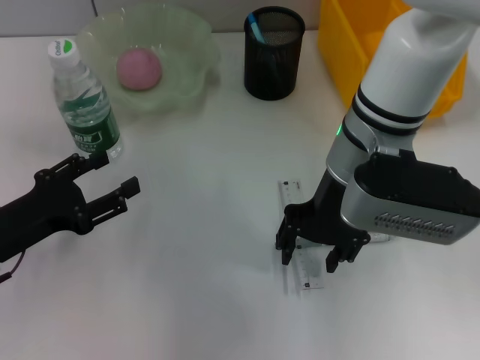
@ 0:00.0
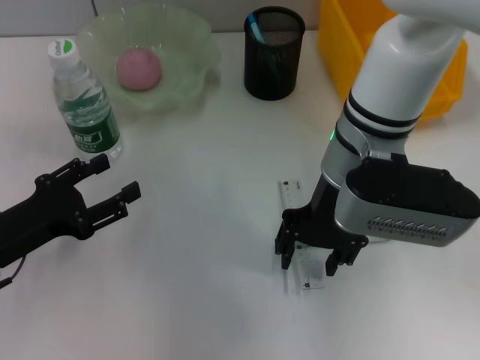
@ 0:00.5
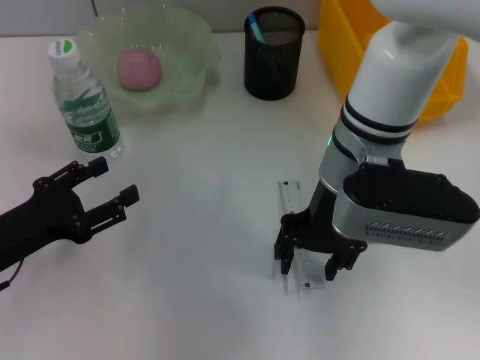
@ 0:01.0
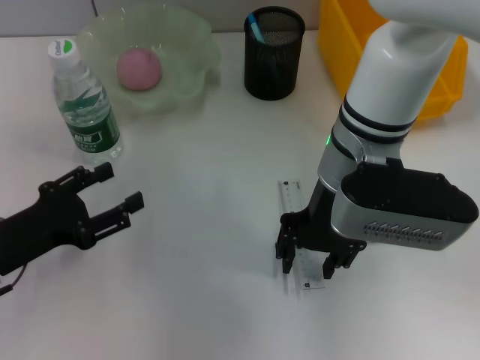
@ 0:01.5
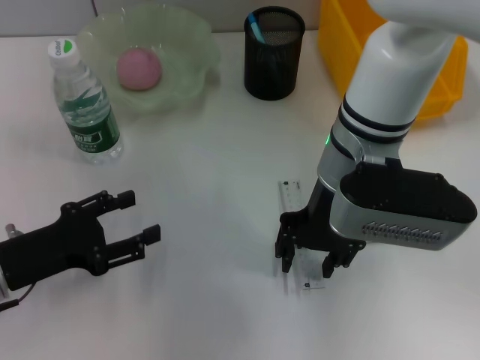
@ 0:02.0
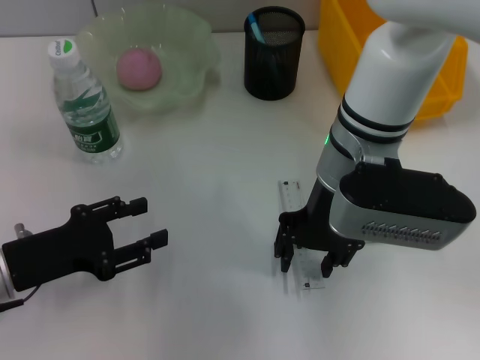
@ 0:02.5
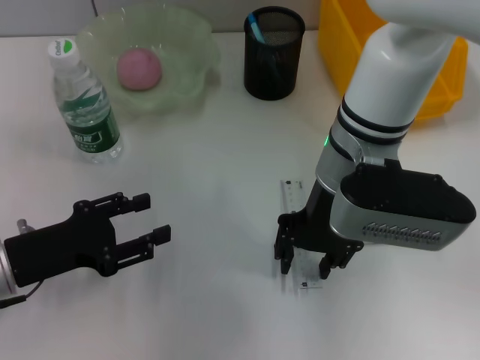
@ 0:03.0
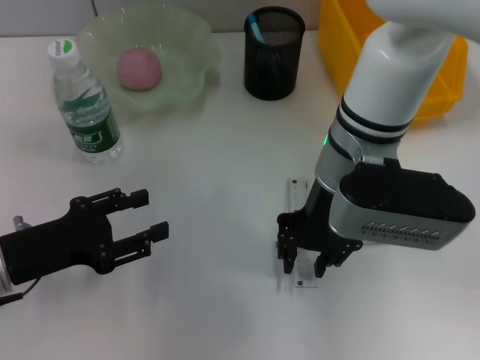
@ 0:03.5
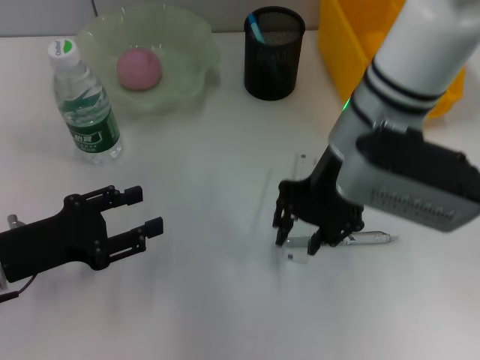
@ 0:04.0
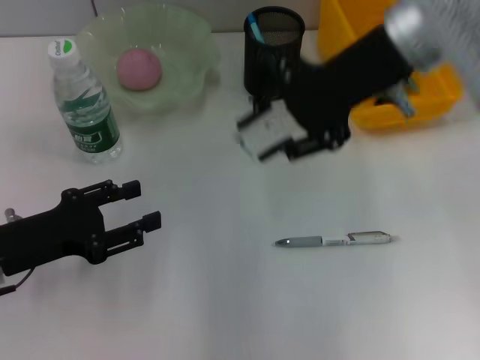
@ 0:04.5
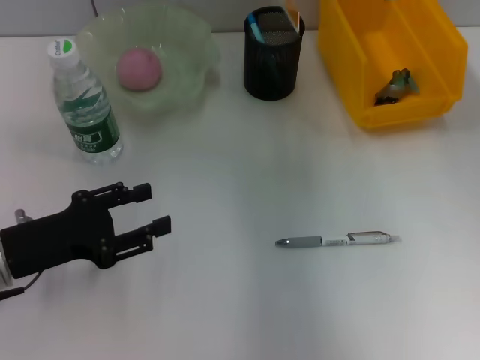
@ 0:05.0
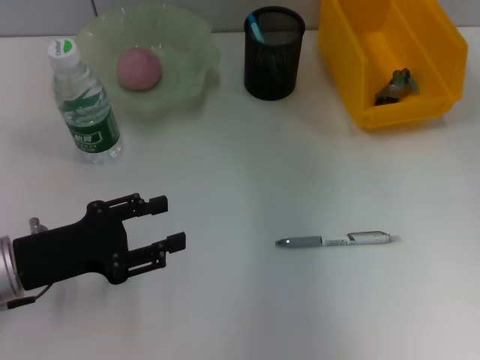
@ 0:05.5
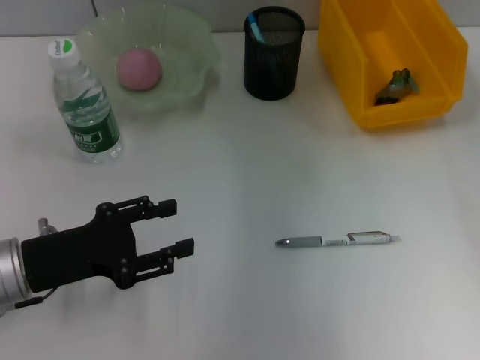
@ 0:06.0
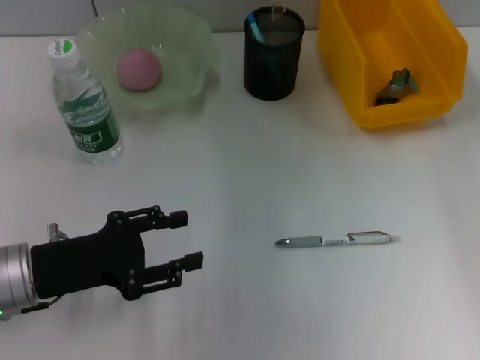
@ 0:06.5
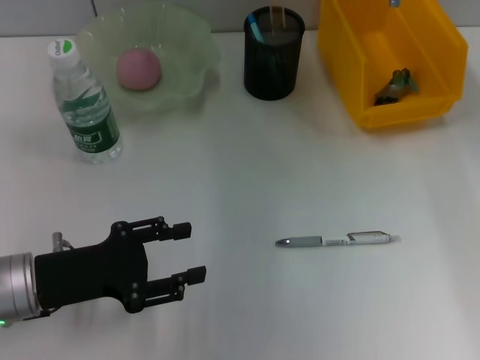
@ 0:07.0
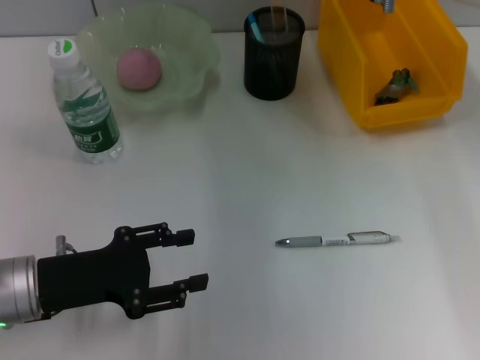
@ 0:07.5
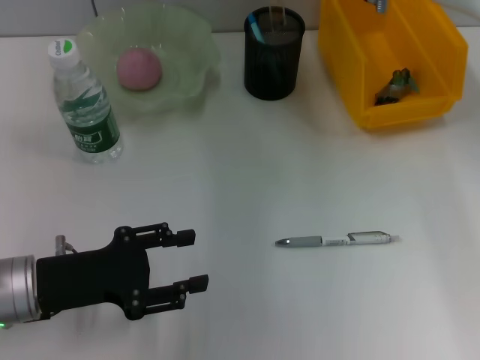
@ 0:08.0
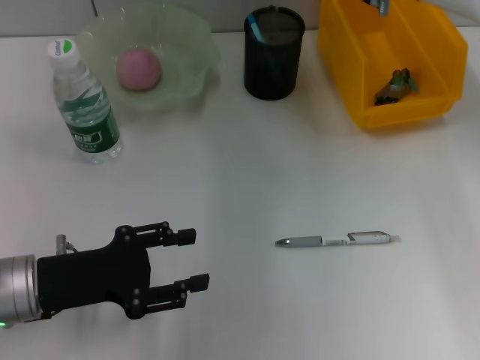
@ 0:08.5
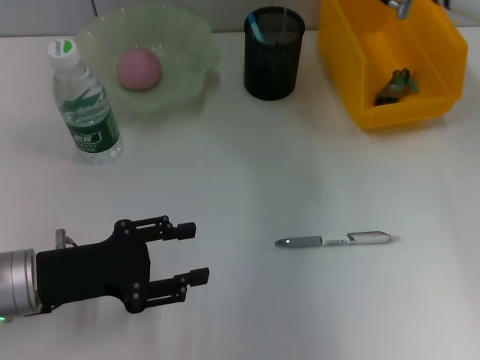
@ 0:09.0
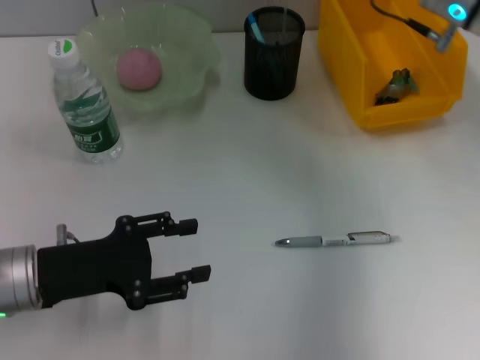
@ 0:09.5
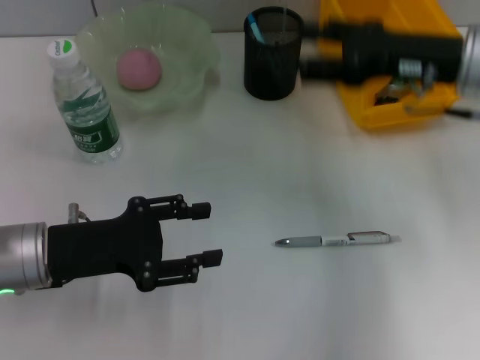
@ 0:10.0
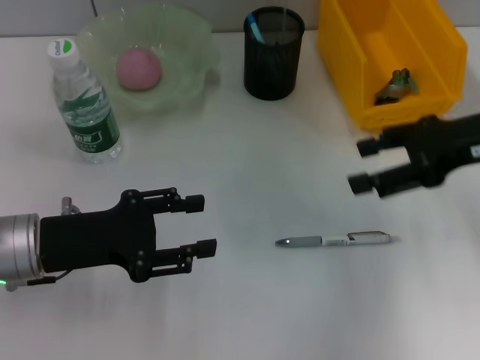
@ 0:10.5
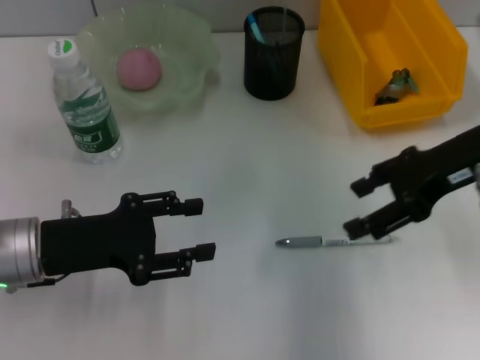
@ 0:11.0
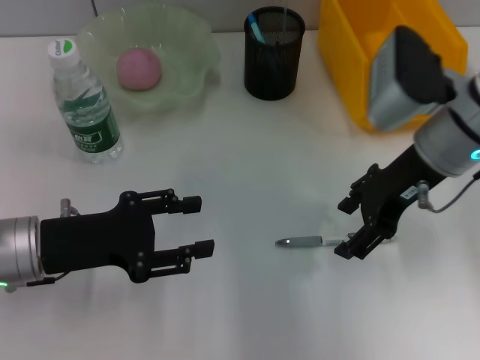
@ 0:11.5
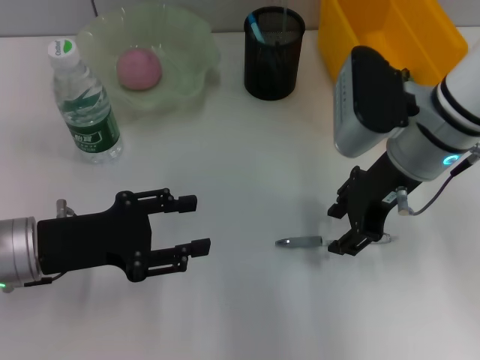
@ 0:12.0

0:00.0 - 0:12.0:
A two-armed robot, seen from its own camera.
Step, 0:00.0 - 0:03.0: Grab the ruler with the right hand.
Step, 0:03.5 - 0:08.5: Place the ruler into the pen holder with the right hand.
0:00.0 - 0:04.0: The grippers stay close to where they were, moving slightly.
0:04.0 - 0:06.0: The right gripper shifts about 15 cm forward and to the right.
0:06.0 - 0:08.0: The right gripper moves some 5 cm.
0:08.0 - 0:10.0: The right gripper is displaced backward and to the right by roughly 15 cm, and opens.
0:10.0 - 0:12.0: The right gripper shifts about 5 cm to the left.

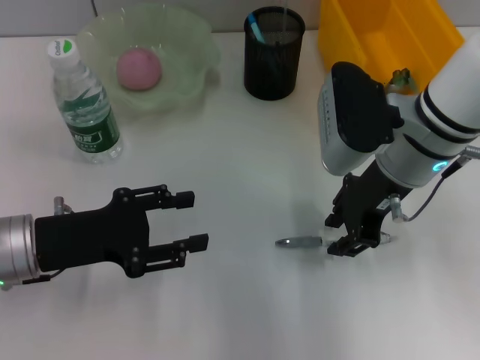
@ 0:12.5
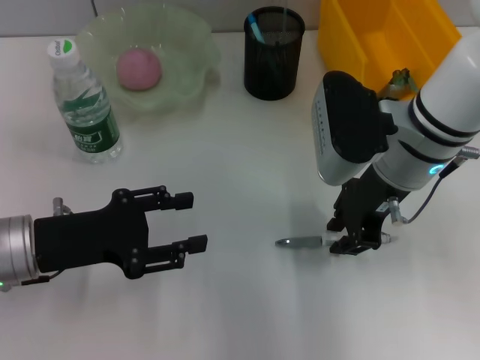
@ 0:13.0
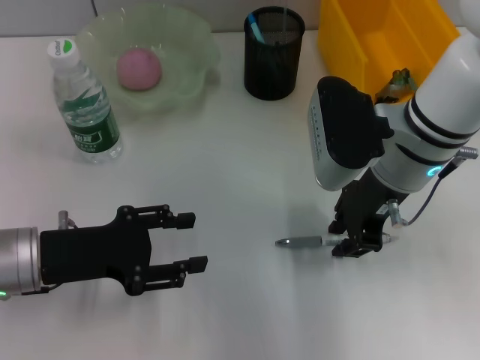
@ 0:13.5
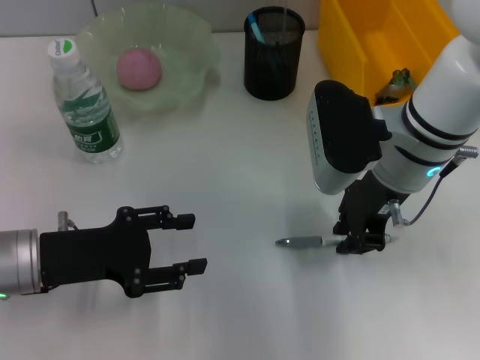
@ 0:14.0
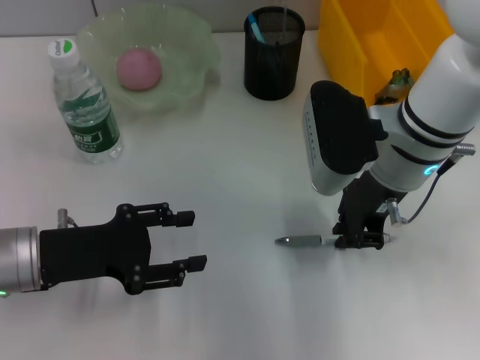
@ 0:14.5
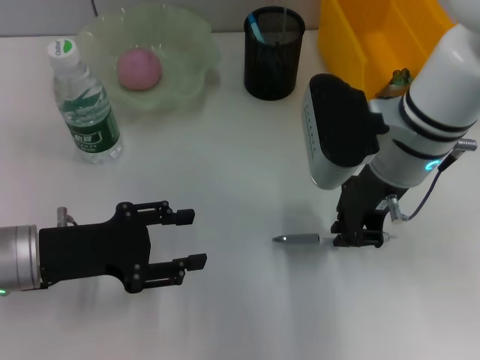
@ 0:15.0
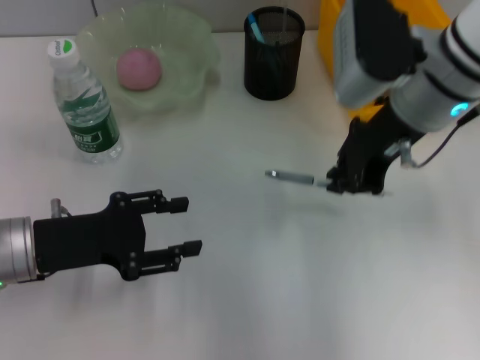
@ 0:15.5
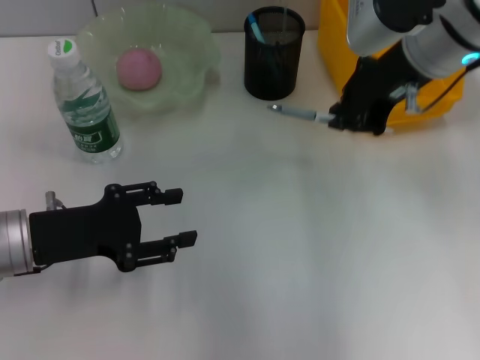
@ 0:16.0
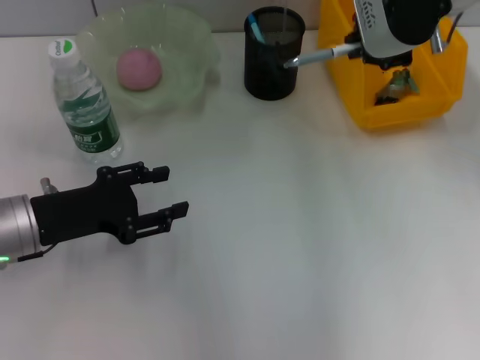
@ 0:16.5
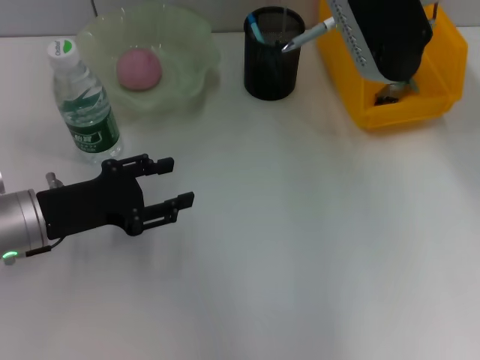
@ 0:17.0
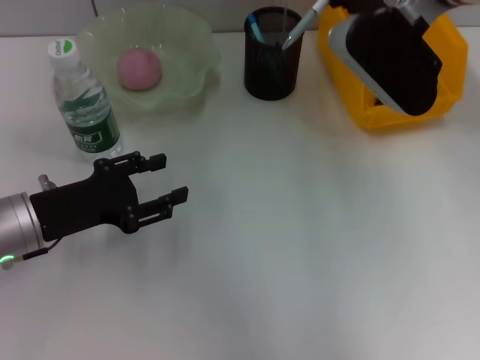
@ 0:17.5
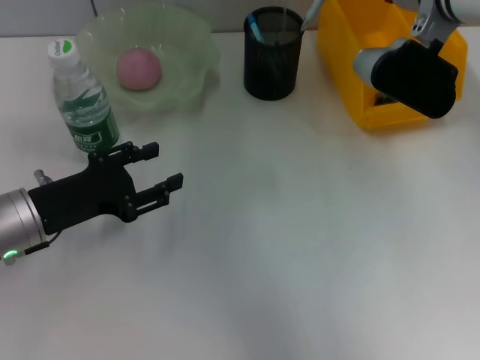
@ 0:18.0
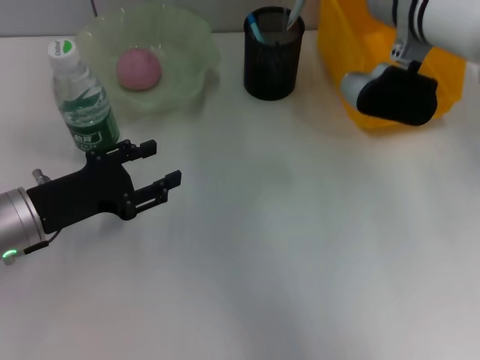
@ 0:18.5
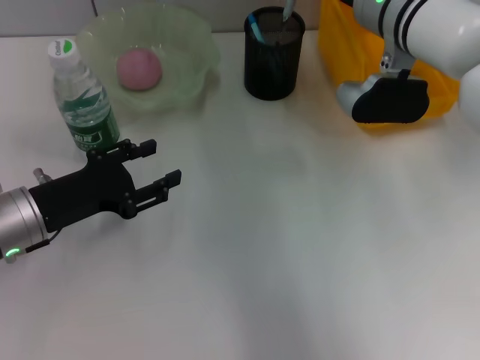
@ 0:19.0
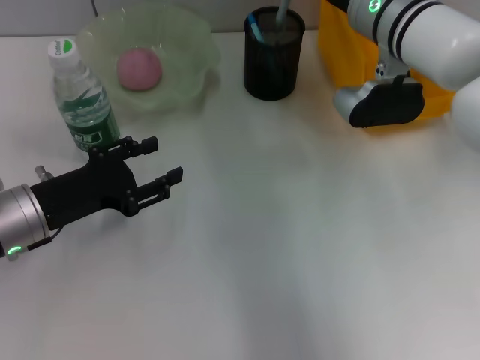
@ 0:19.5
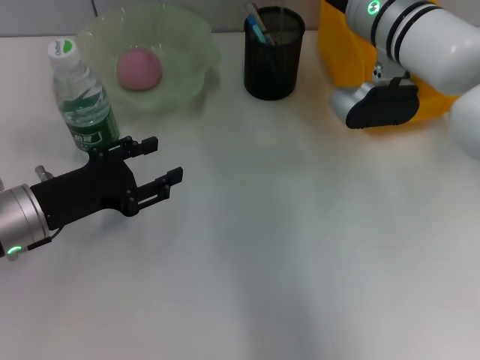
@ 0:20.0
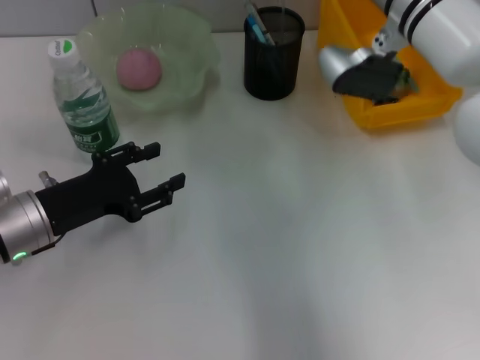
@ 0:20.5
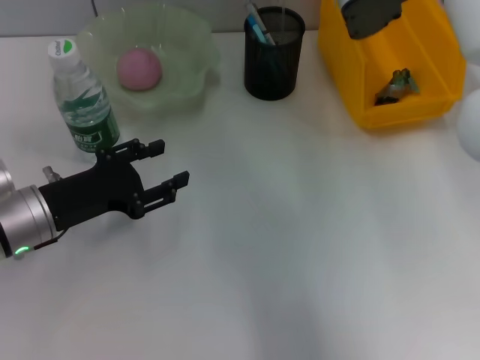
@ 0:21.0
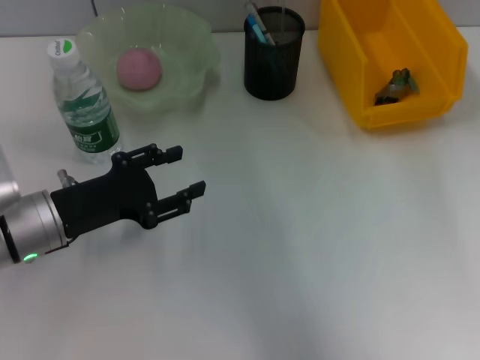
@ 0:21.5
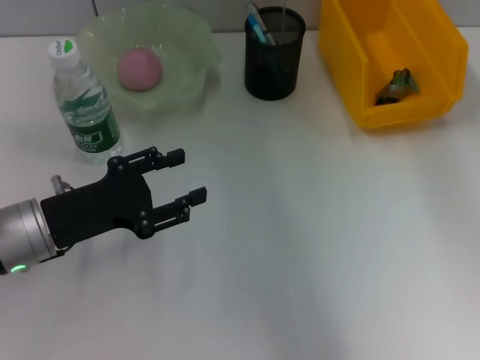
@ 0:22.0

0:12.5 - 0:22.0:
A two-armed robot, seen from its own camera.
Step, 0:12.5 - 0:14.5: Grab the gray spring-action pen with the right hand.
Step, 0:15.0 - 0:19.5: Place the gray spring-action pen into the pen holder with the right hand.
0:12.5 - 0:14.5: The grippers stay close to where they were, moving slightly.
0:14.5 - 0:16.5: The right gripper goes roughly 15 cm upward.
0:16.5 - 0:18.0: The right gripper is displaced downward by approximately 5 cm.
0:18.0 - 0:20.0: The right gripper travels downward by roughly 5 cm, and opens its fingers.
0:20.0 - 0:22.0: The right gripper moves upward and to the right, roughly 15 cm.

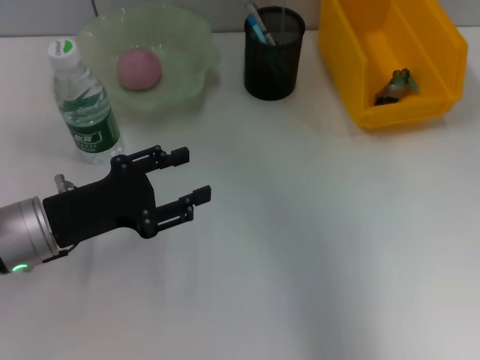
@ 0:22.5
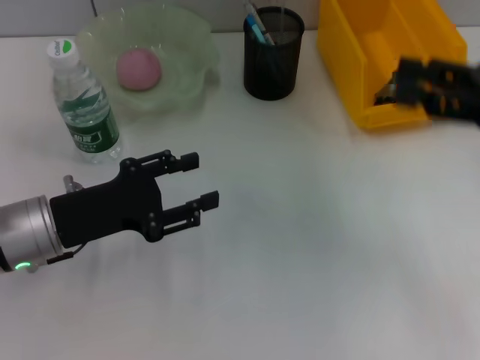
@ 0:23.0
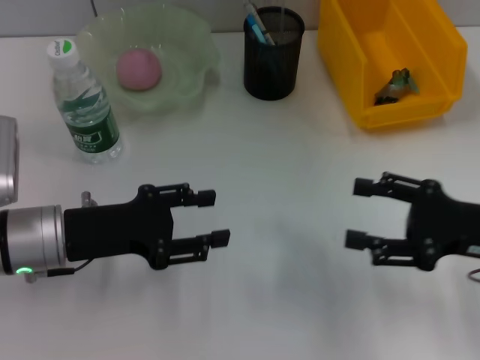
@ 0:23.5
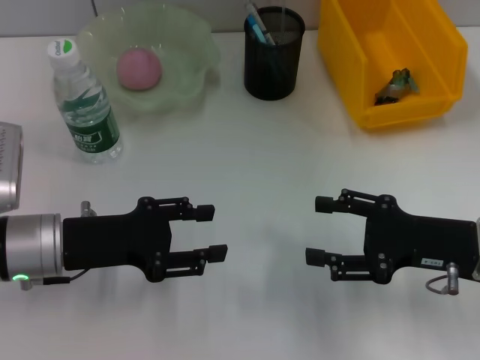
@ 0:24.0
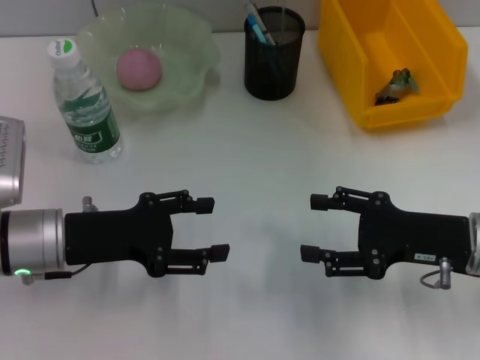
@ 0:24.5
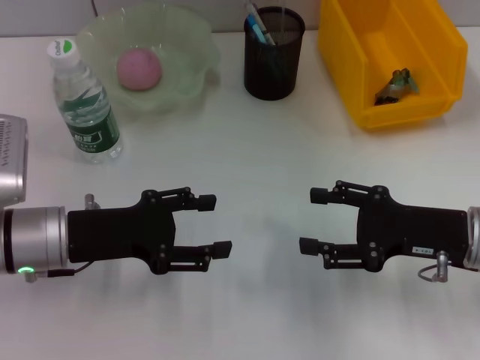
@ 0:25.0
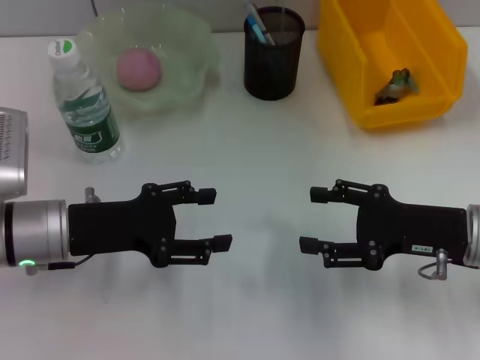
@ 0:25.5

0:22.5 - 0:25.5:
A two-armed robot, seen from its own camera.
0:22.5 - 0:24.0: The right gripper heads downward and backward, covering roughly 25 cm.
0:24.0 - 0:25.5: Both grippers stay about where they are.
